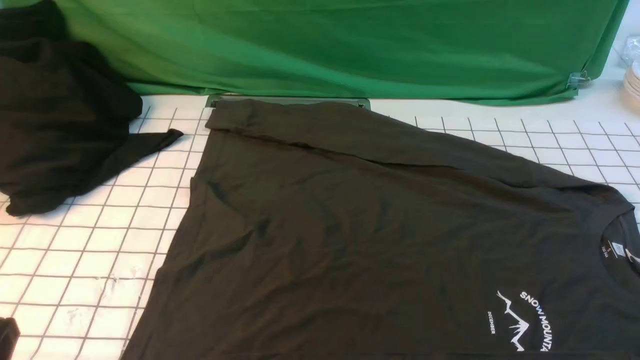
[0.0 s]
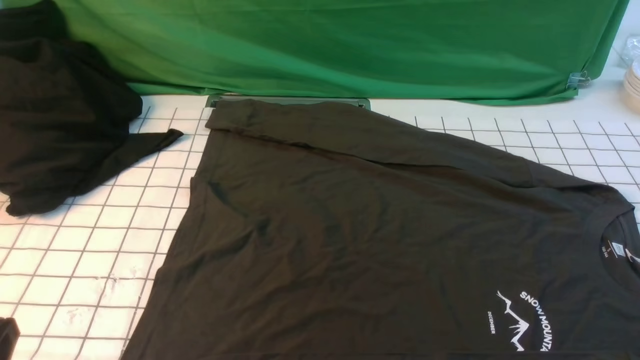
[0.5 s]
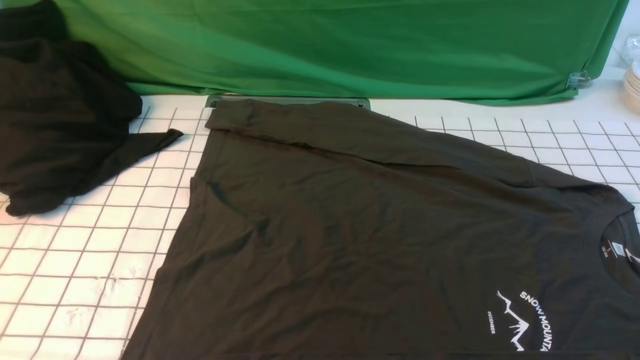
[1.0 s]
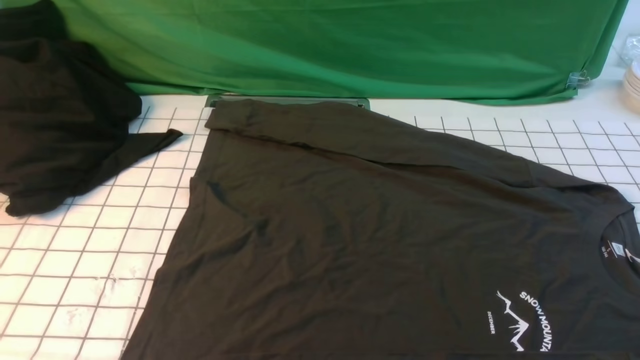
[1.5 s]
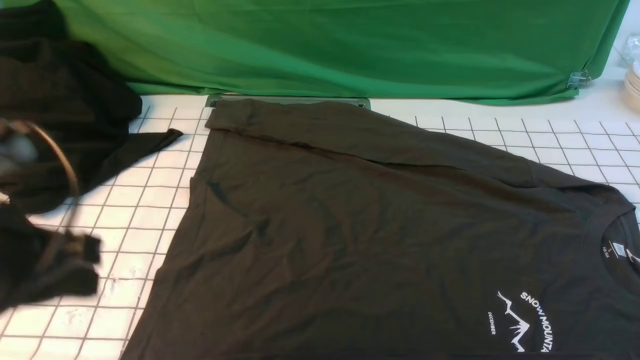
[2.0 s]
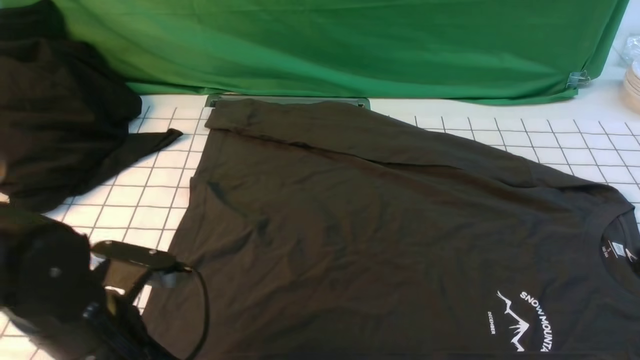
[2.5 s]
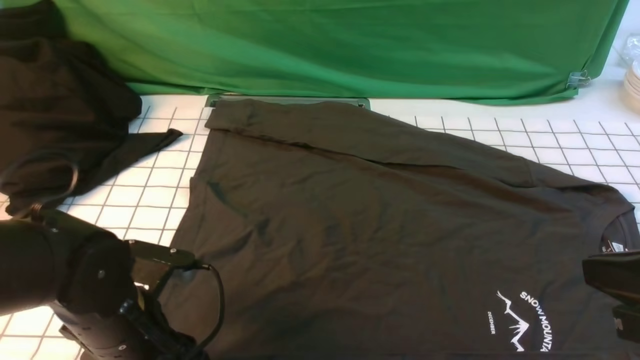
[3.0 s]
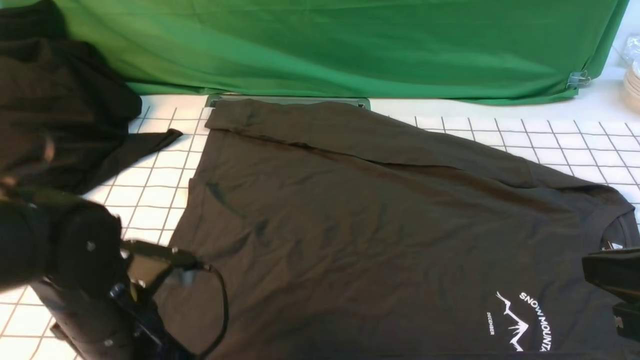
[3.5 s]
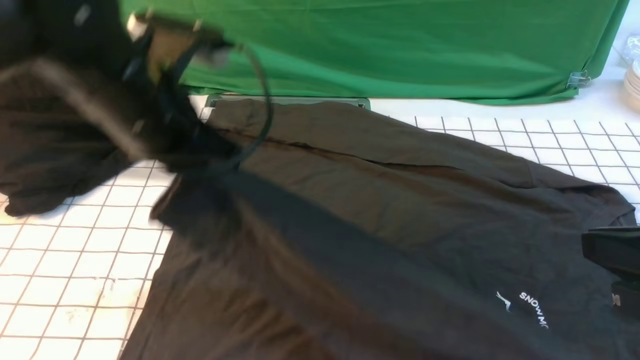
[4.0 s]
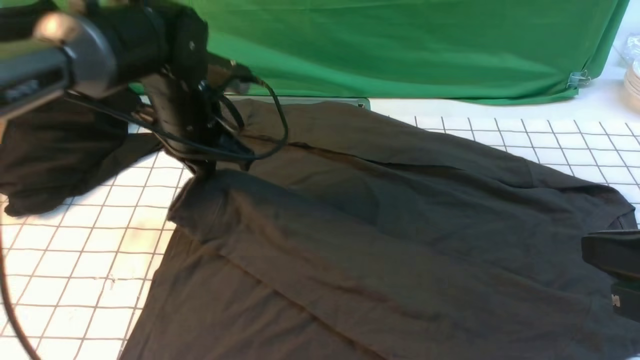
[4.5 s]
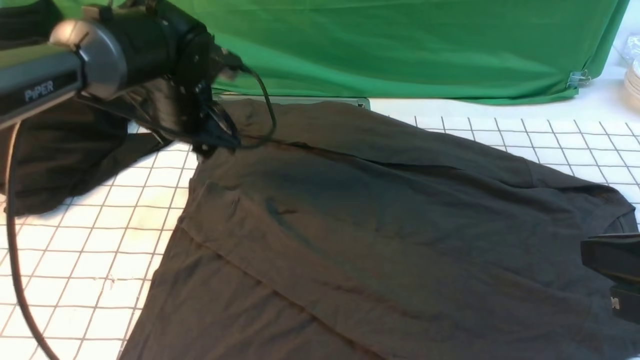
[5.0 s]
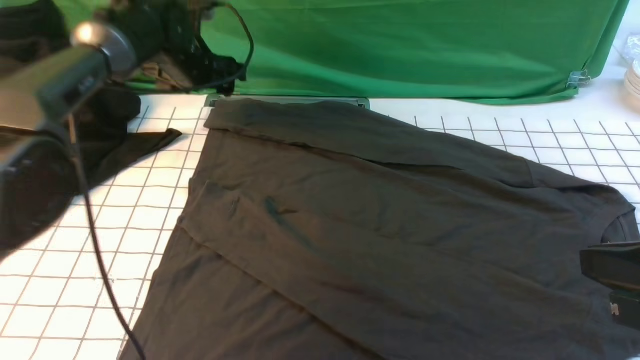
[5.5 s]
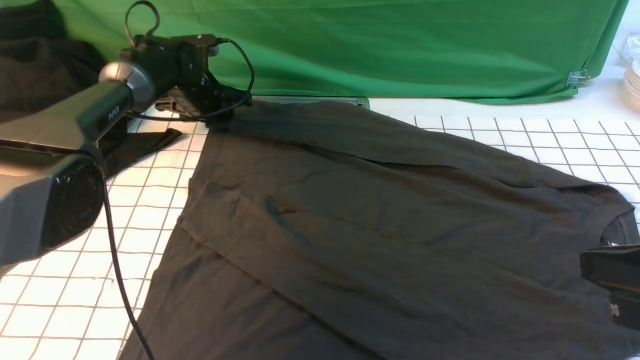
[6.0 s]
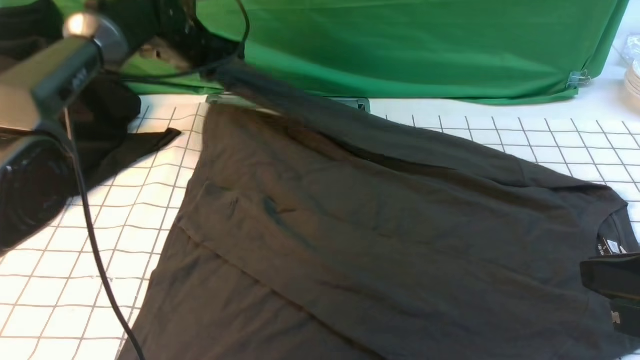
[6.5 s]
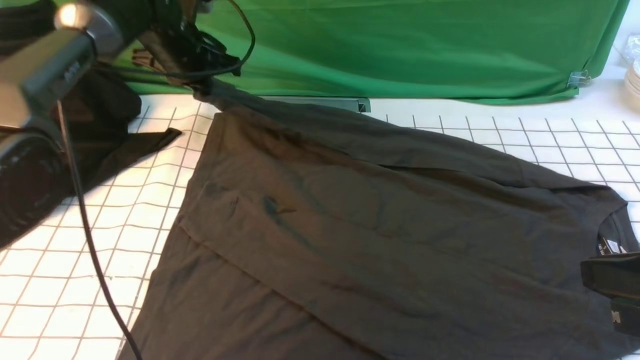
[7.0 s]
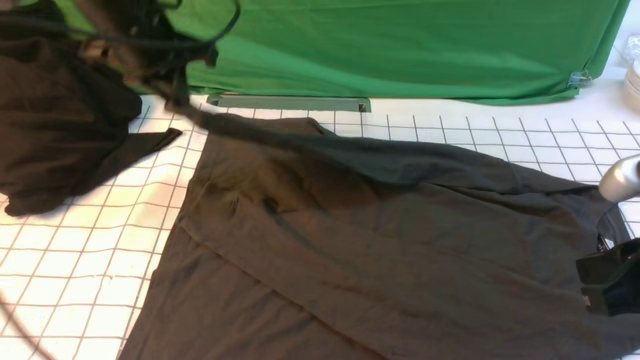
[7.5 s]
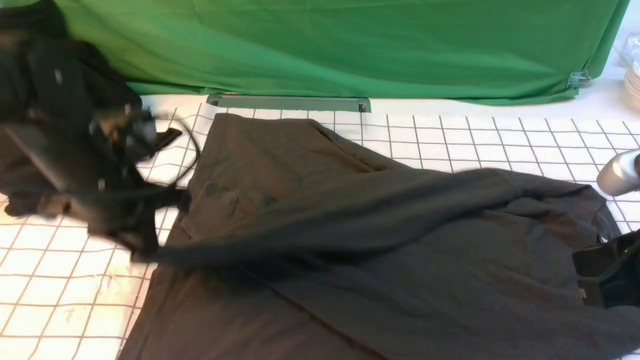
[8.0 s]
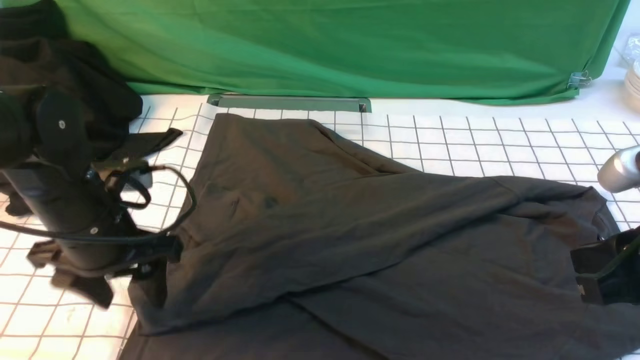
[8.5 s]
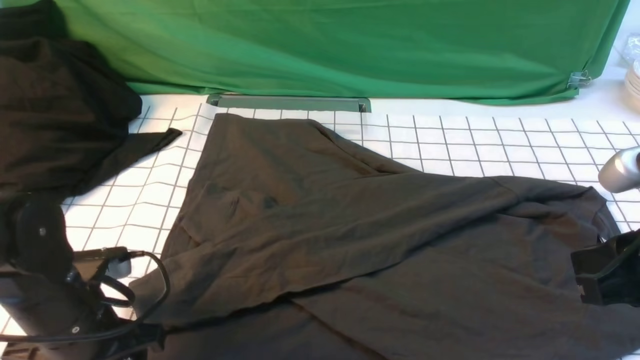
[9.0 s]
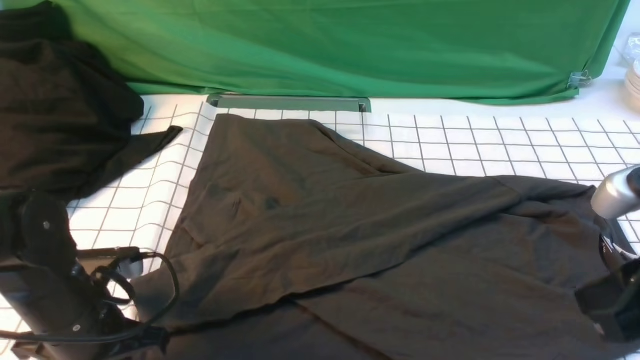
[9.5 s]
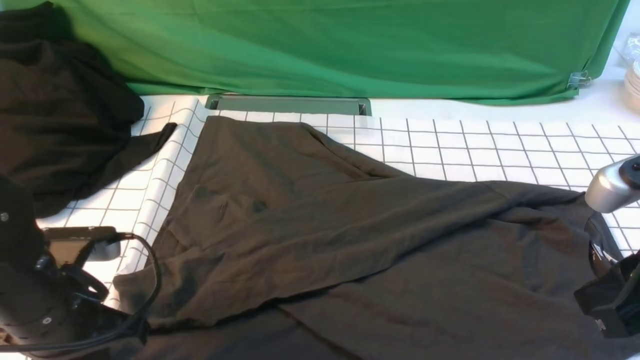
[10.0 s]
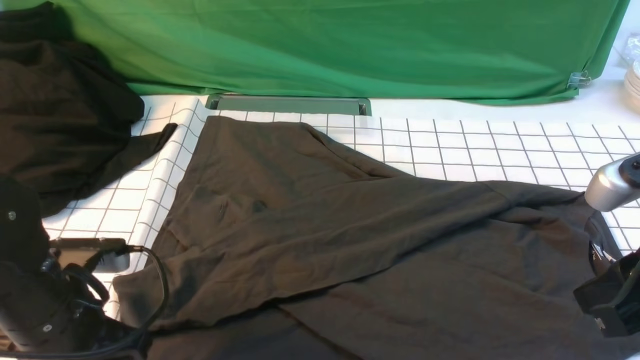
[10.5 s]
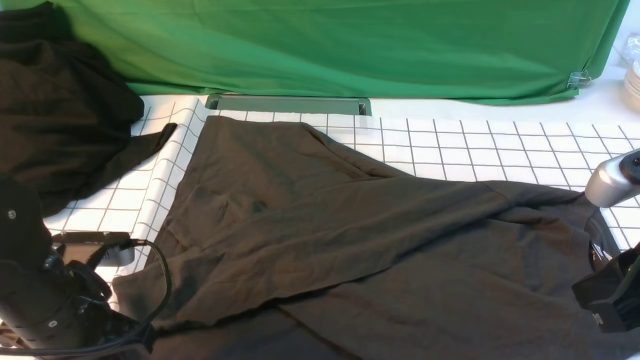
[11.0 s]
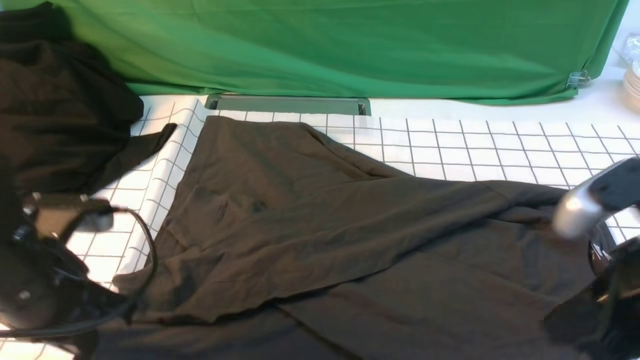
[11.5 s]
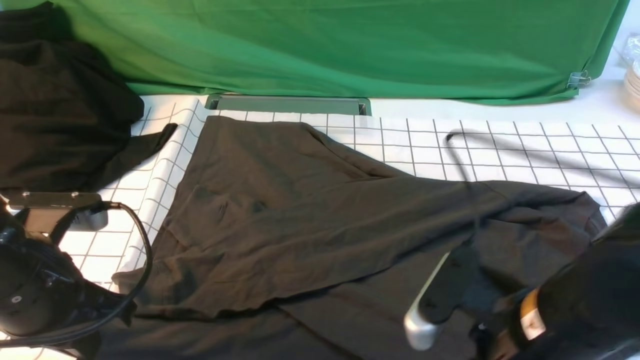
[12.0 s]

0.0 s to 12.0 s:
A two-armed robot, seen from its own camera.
Step, 0.0 to 3.0 s: use the left arm to clamp the cuff closest to it.
Step, 3.5 to 4.5 s: use the left arm to drag and place the cuff at the centered position on the left edge of the fabric.
Step, 5.0 to 6.0 s: use the left arm to clamp the cuff farthest from it.
Step, 6.5 to 8.0 s: use the left arm to drag and drop the cuff onto the cuff closest to the left arm.
0.0 to 2.0 s: The left gripper heads forward and upward, covering some 15 cm.
2.0 to 4.0 s: The left gripper travels forward and to the right by approximately 15 cm, reaches some 15 cm downward, then returns, and opens, then closes once more. The right gripper goes some 15 cm forward, upward and to the left.
4.0 to 6.0 s: The left gripper moves forward and downward, approximately 30 cm, and opens.
6.0 to 8.0 s: The left gripper shifts approximately 25 cm backward, and closes up.
8.0 to 10.0 s: The left gripper moves backward, roughly 10 cm, and opens, then closes again.
10.0 to 12.0 s: The left gripper opens, then closes once more; the right gripper goes approximately 15 cm to the left and downward, and opens its fingers.

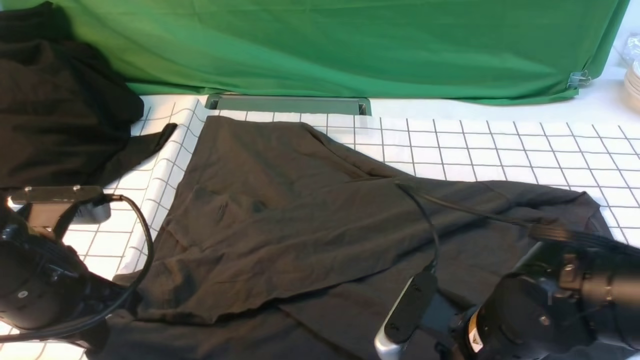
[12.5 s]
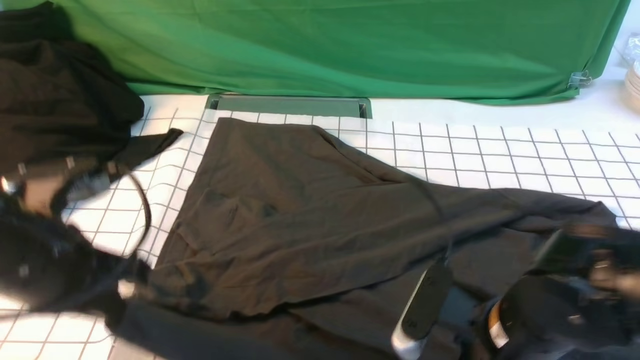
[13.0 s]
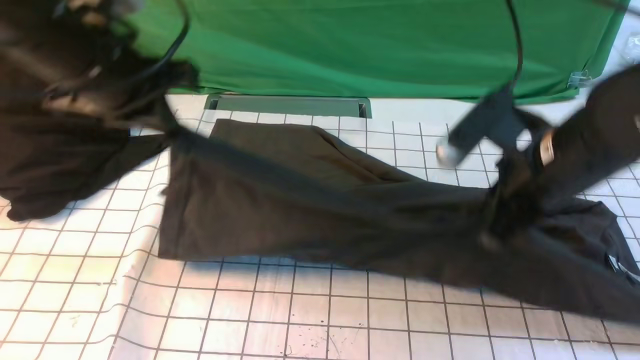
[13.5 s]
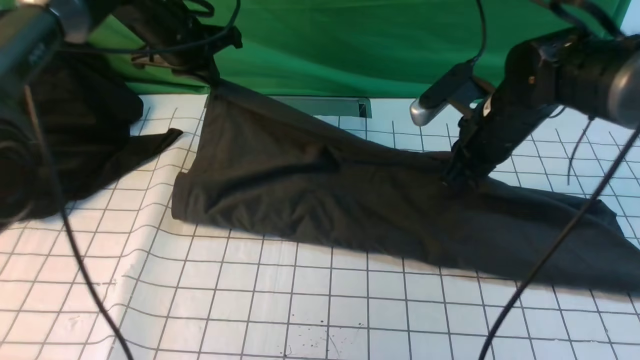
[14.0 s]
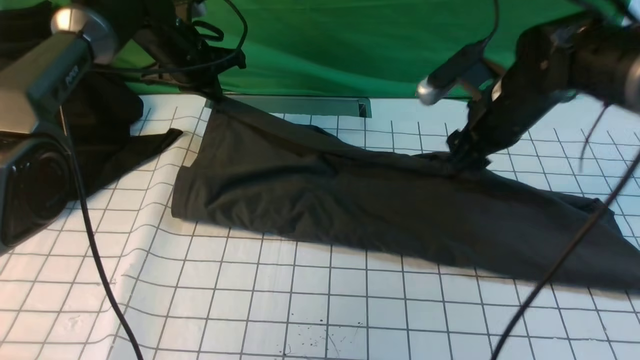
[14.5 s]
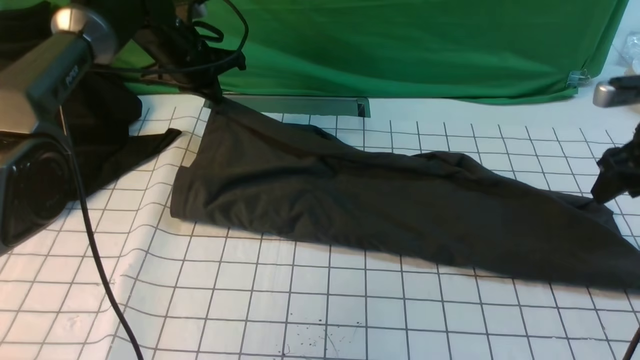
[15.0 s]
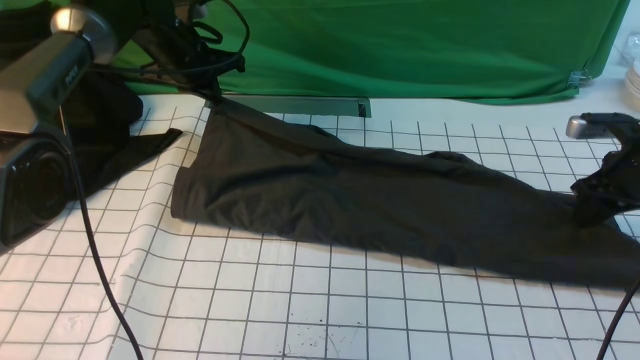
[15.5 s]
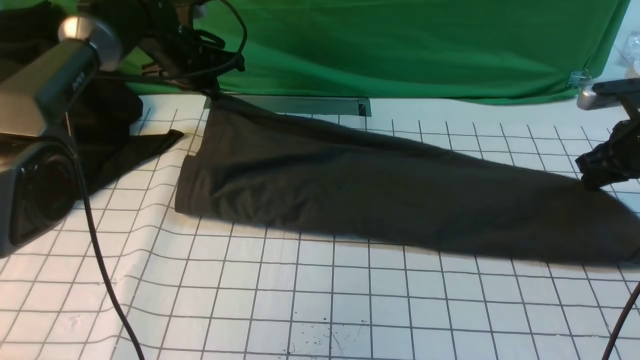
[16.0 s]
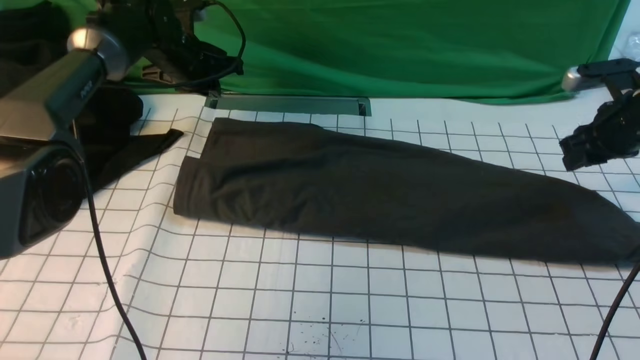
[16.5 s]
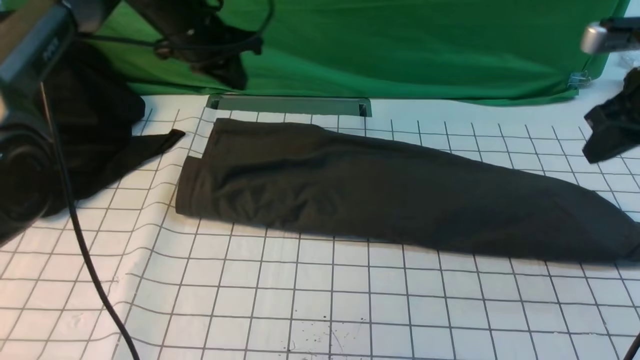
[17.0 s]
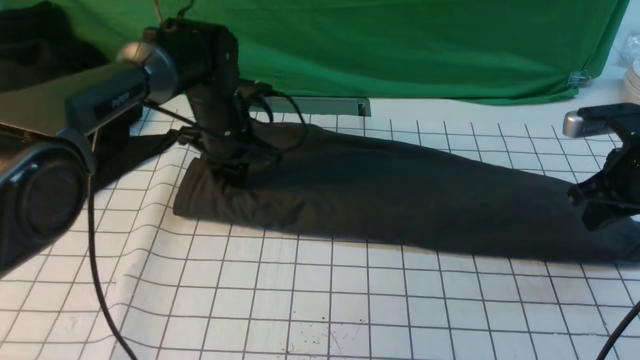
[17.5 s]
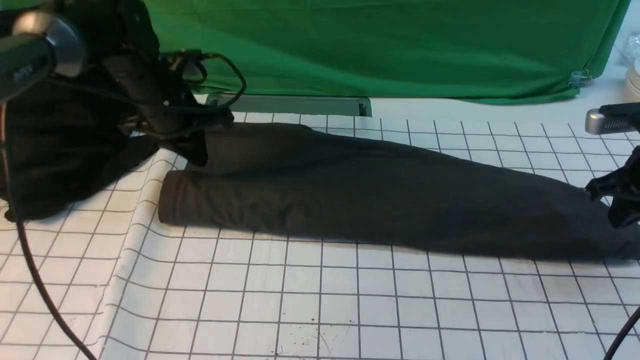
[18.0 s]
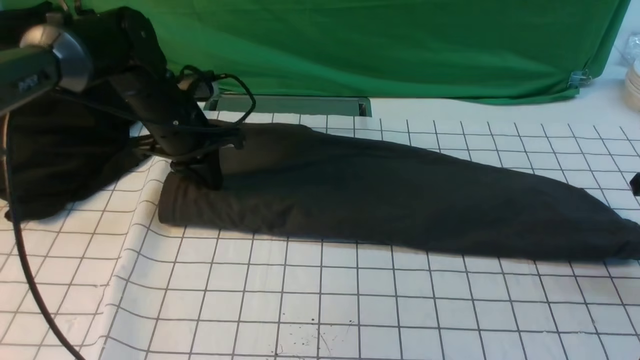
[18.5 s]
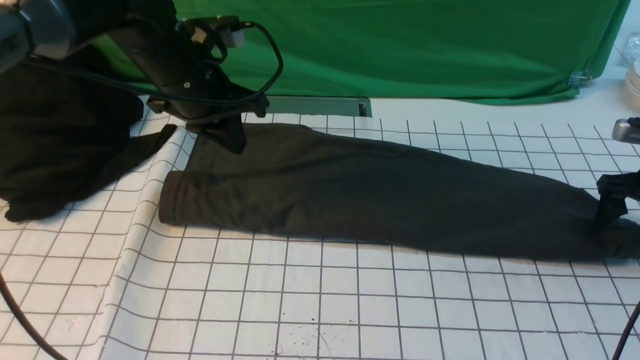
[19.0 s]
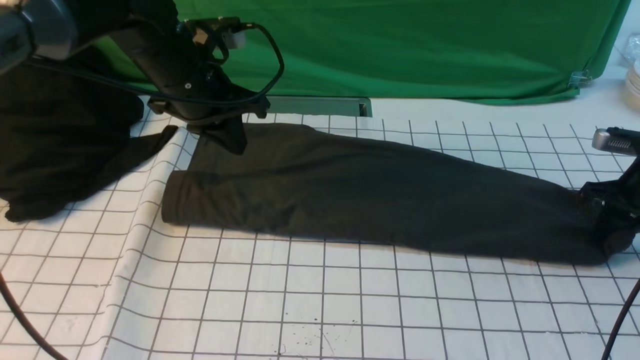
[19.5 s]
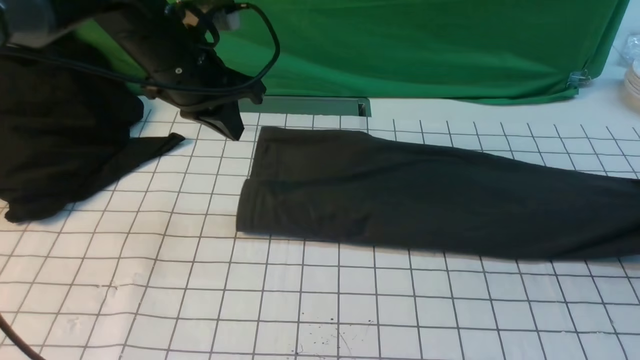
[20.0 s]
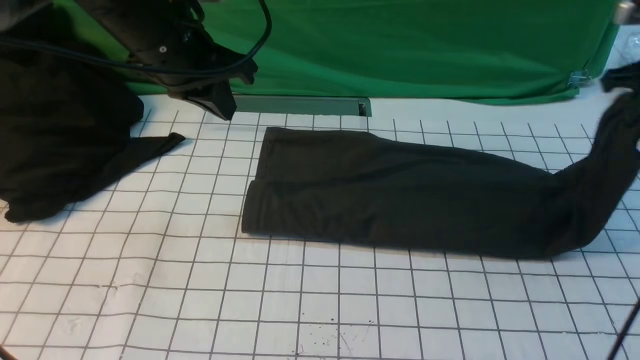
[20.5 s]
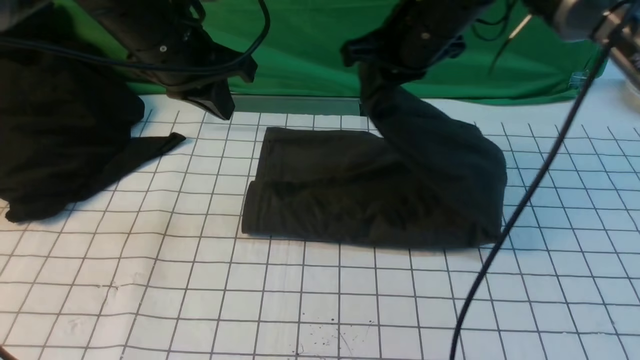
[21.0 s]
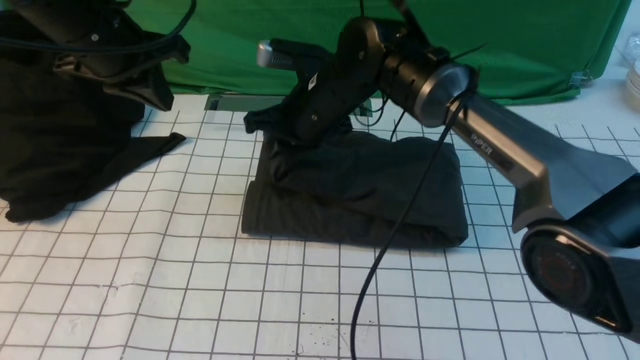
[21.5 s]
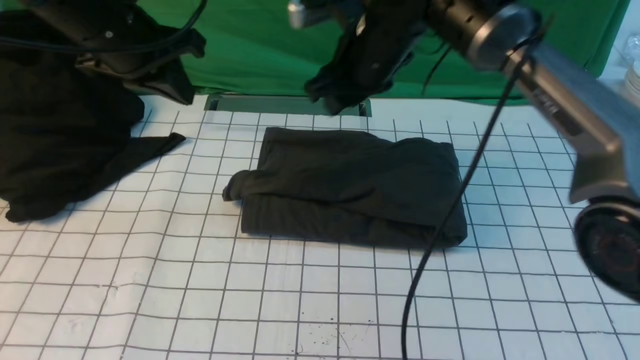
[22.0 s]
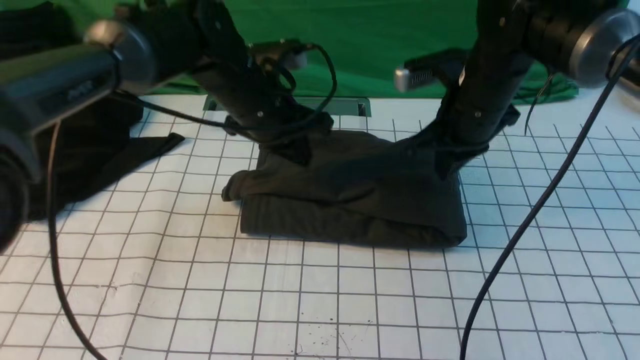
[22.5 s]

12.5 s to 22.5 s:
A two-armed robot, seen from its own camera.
Step, 13.0 to 16.0 s: use both arms to drag the lower edge of the fabric forward and fold it over the upper edge.
Step, 16.5 to 19.0 s: use the right arm to clamp the right edge of the fabric.
Step, 20.0 to 21.5 s: use the right arm to drag the right edge of the fabric to the left and folds it over the left edge.
12.5 to 14.5 s: The left gripper shifts about 35 cm forward. Meanwhile the right gripper travels forward and upward by some 25 cm, and closes, then reopens.
14.5 to 16.5 s: The right gripper shifts some 15 cm to the right, and closes its fingers; the left gripper opens.
16.5 to 18.5 s: The right gripper goes roughly 5 cm backward, and closes and opens again, while the left gripper shifts about 10 cm backward, and closes up.
18.5 to 20.5 s: The left gripper travels upward by roughly 10 cm. Meanwhile the right gripper travels upward, to the left and forward by some 15 cm, and closes its fingers.
20.5 to 22.5 s: The left gripper moves downward and to the right, about 10 cm. Meanwhile the right gripper shifts roughly 20 cm to the left, and opens, then closes once more.
